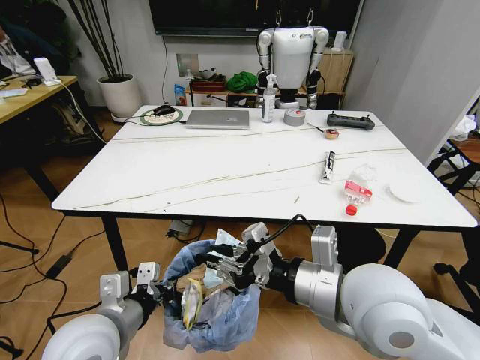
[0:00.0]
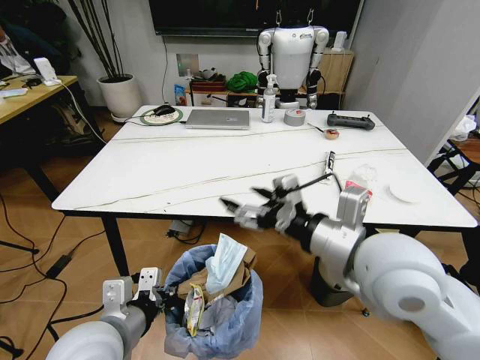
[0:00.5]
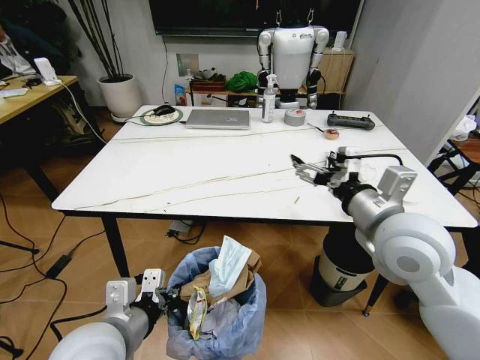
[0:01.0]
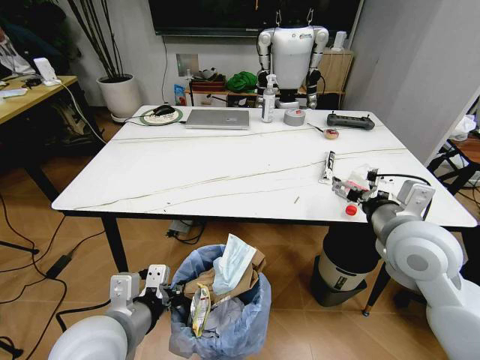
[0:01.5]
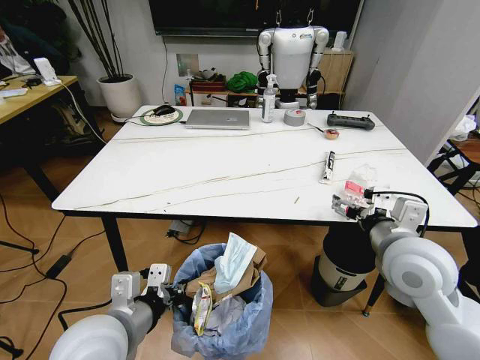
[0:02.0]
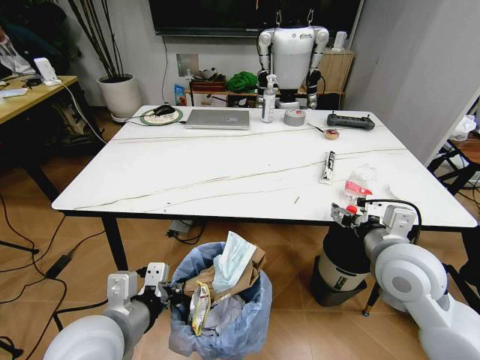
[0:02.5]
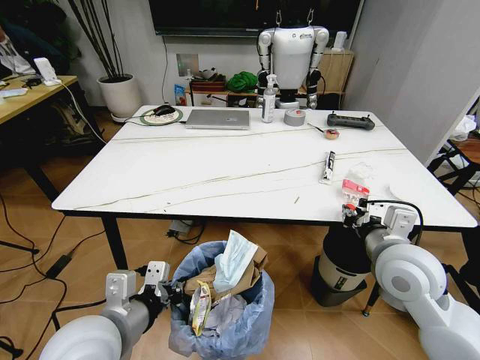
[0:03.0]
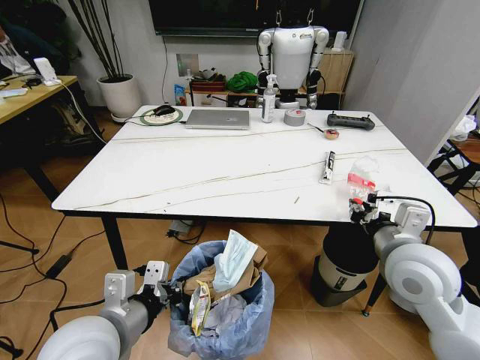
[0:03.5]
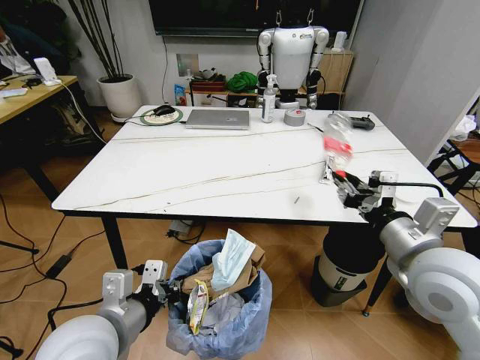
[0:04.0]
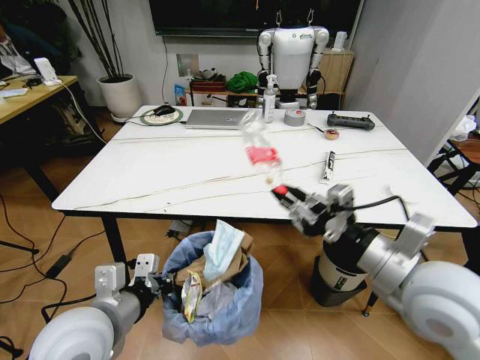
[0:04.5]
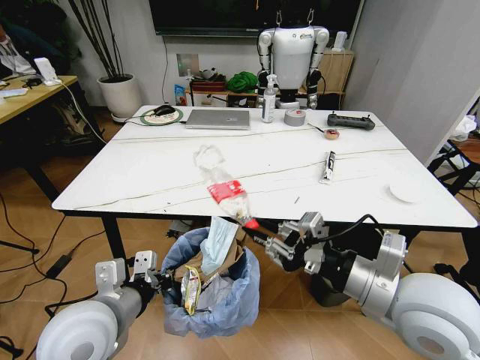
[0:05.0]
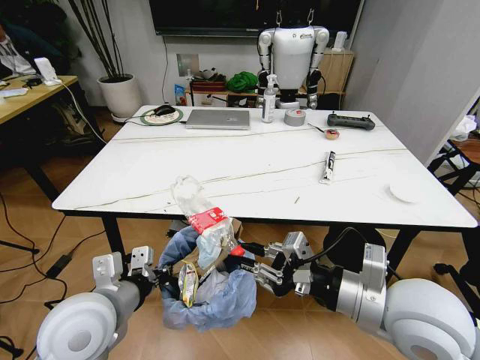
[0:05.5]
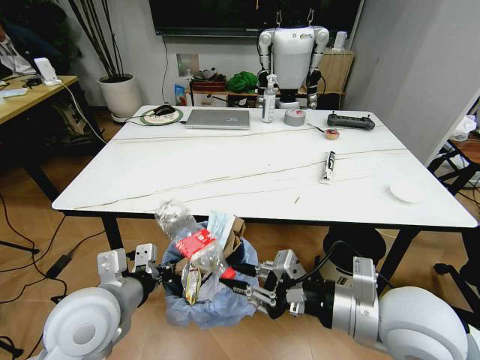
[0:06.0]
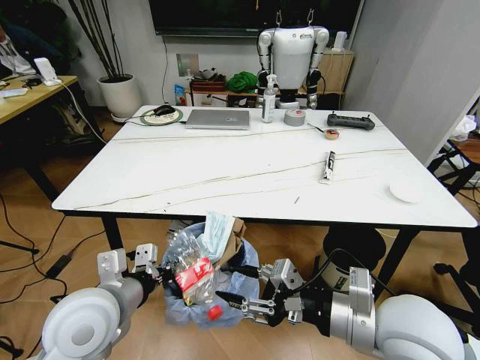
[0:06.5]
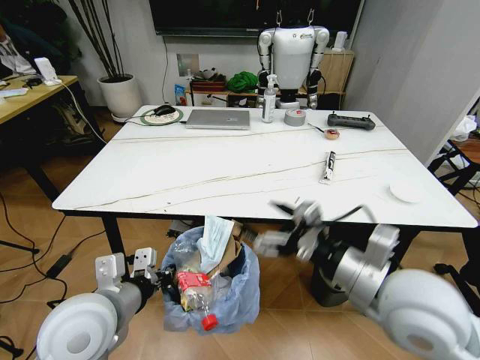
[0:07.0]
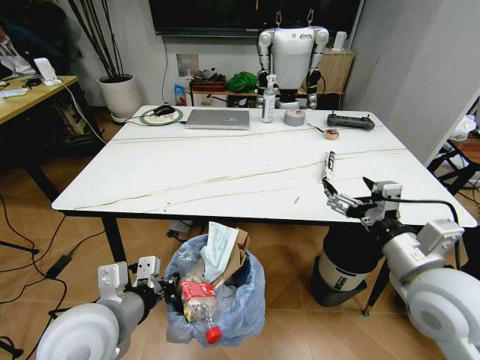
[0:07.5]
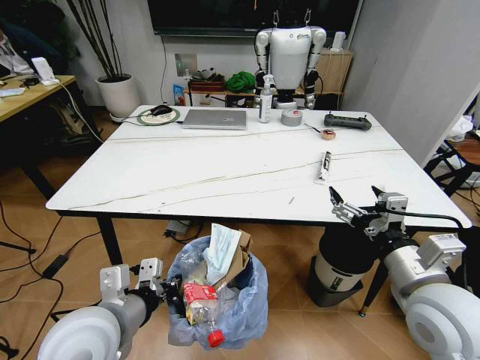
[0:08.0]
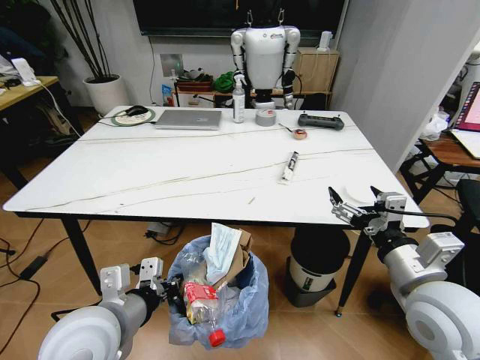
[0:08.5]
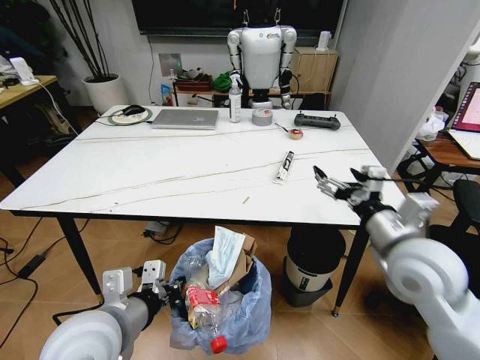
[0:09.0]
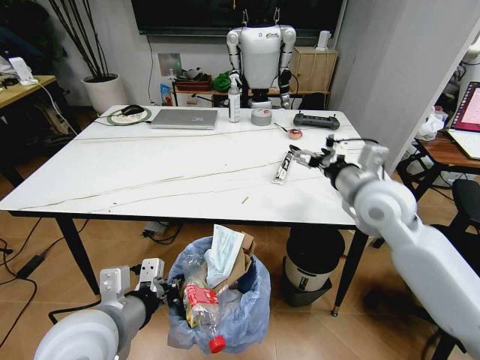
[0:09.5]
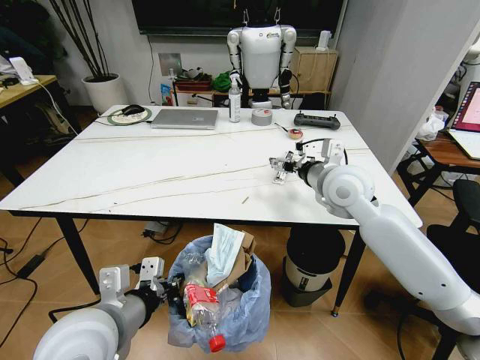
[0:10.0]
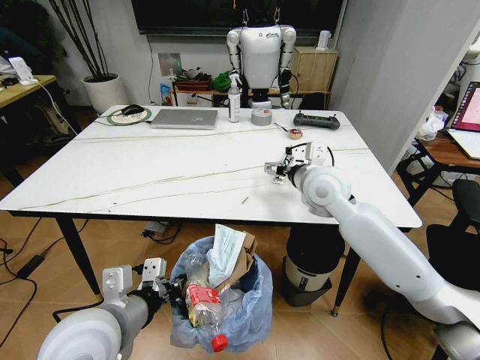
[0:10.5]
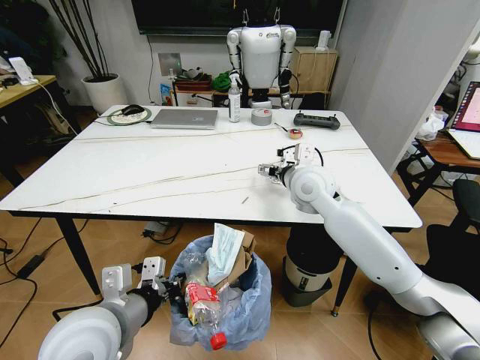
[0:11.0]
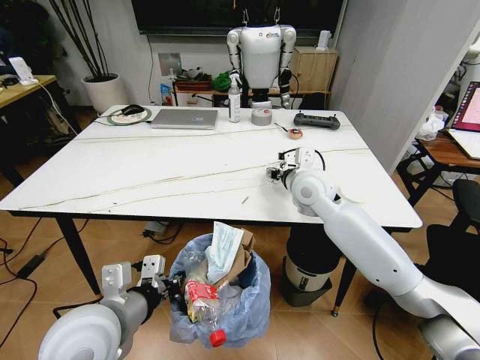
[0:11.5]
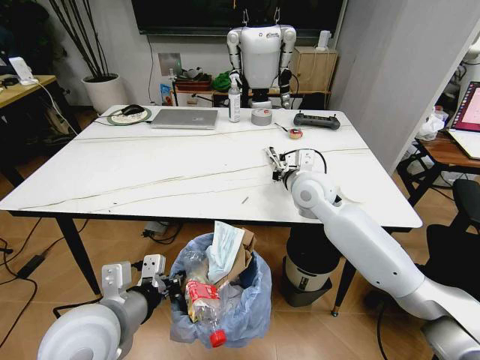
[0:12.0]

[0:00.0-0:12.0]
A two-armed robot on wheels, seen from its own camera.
Task of the whole recording: Pick up the trash bin and place the trash from the table into it.
0.0 to 2.0 s: The right gripper travels to the right and forward by roughly 15 cm, and opens its fingers.
2.0 to 4.0 s: The right gripper closes.
4.0 to 6.0 s: The right gripper travels to the left by roughly 5 cm.
6.0 to 8.0 s: The right gripper heads to the right, covering about 5 cm, and opens.
8.0 to 10.0 s: The right gripper goes roughly 25 cm forward.
10.0 to 12.0 s: The right gripper moves about 5 cm, and closes up.

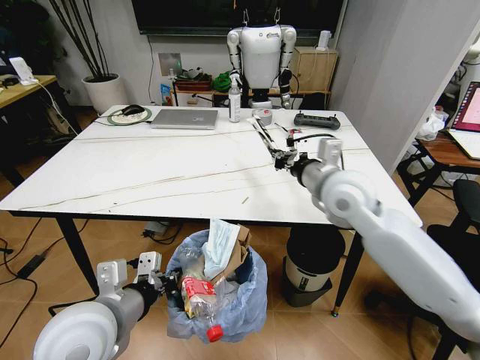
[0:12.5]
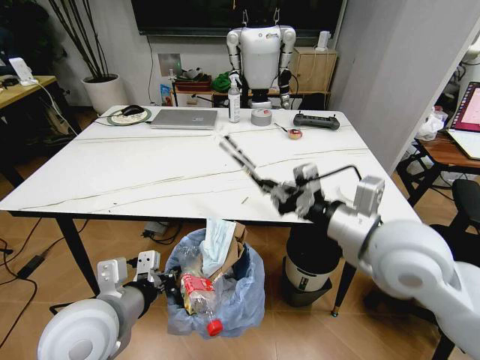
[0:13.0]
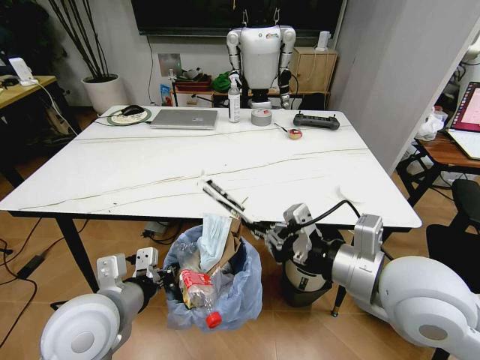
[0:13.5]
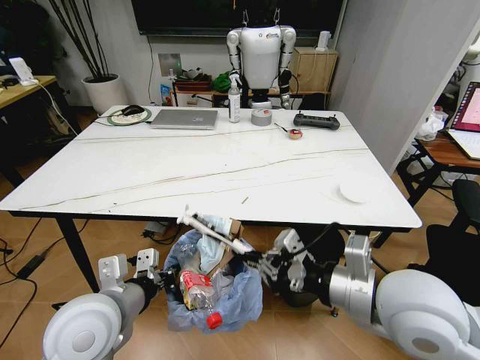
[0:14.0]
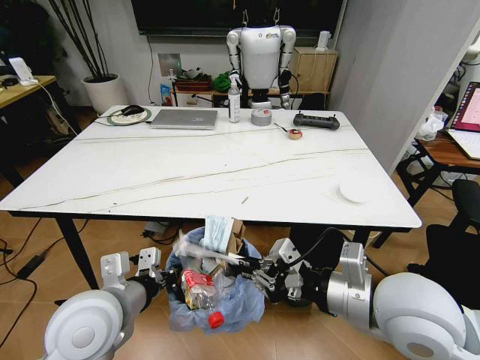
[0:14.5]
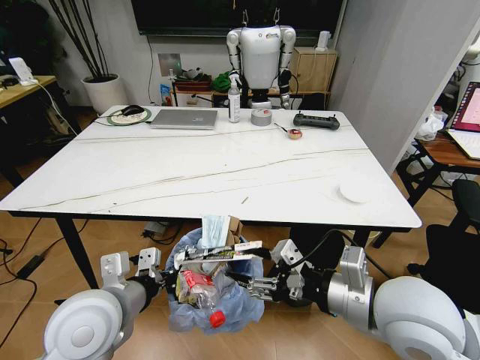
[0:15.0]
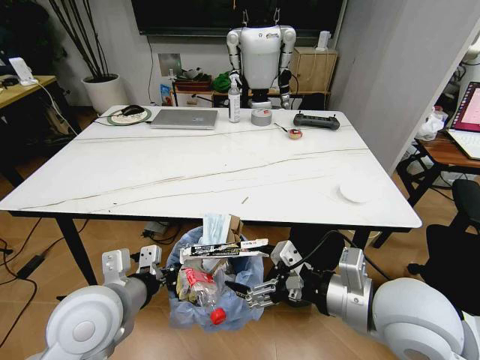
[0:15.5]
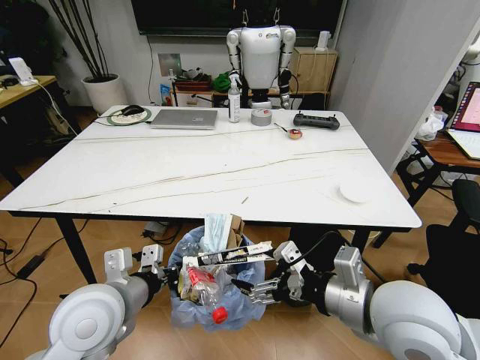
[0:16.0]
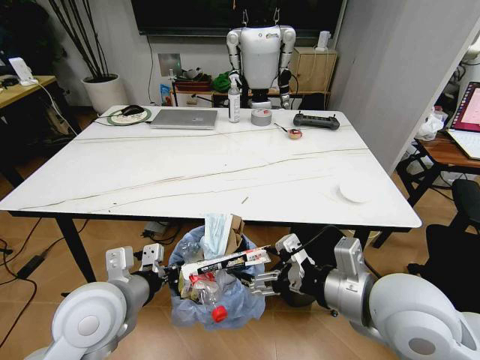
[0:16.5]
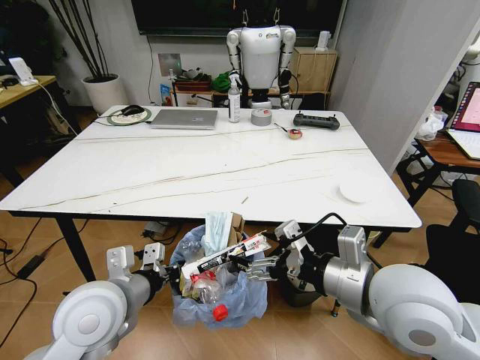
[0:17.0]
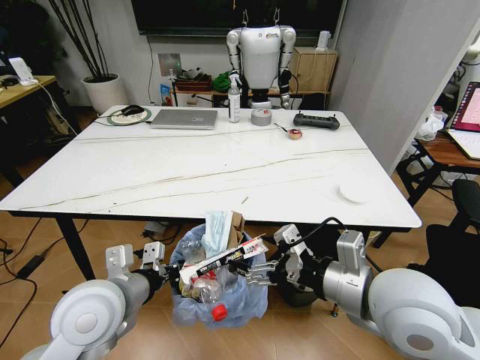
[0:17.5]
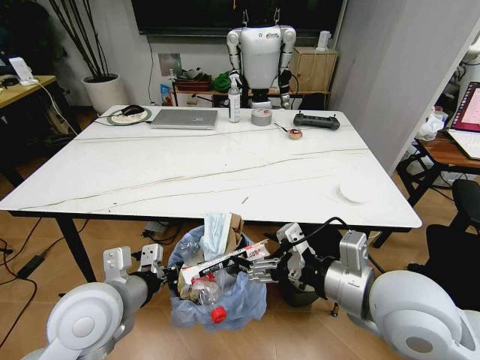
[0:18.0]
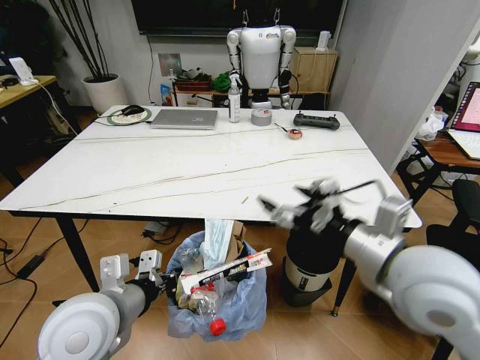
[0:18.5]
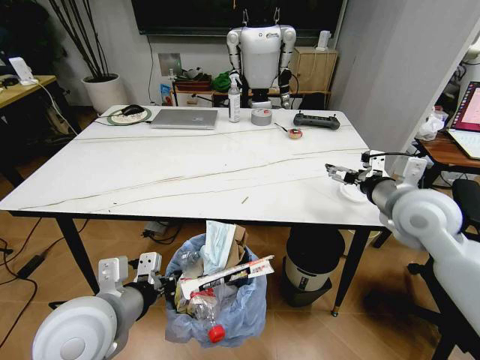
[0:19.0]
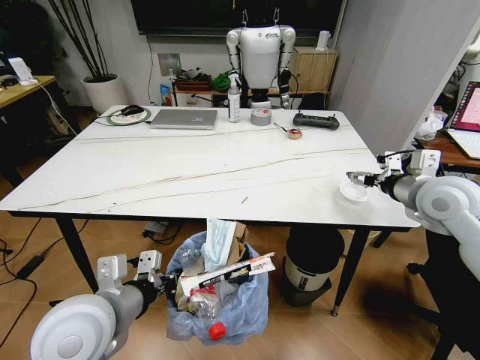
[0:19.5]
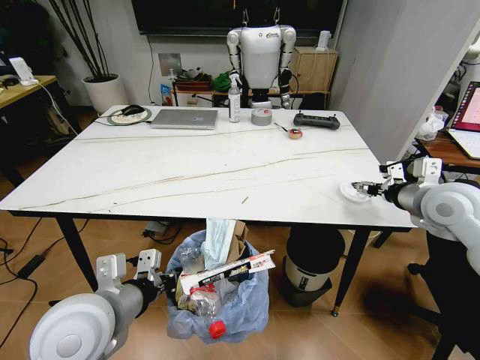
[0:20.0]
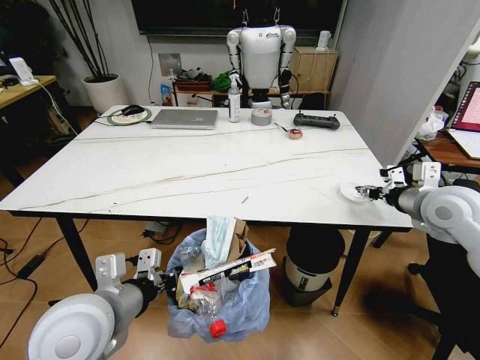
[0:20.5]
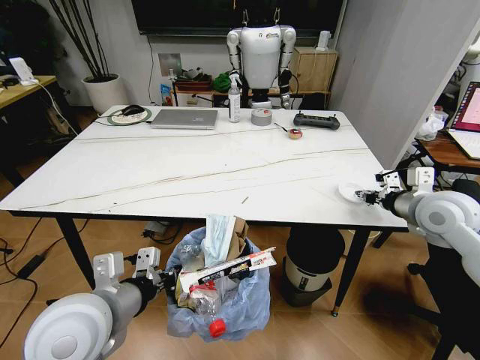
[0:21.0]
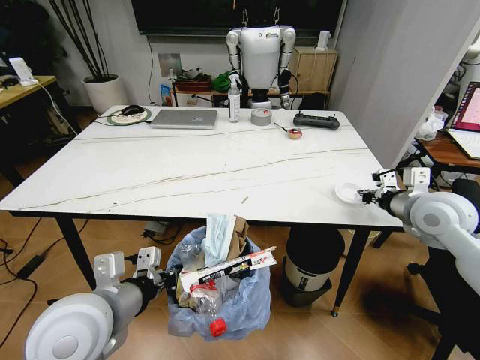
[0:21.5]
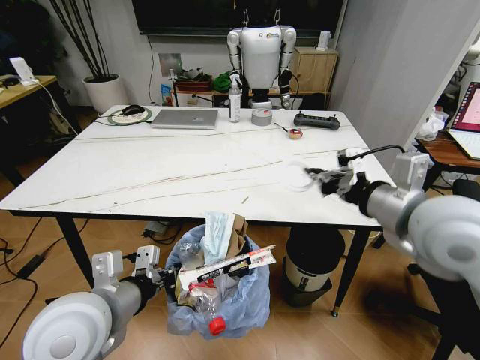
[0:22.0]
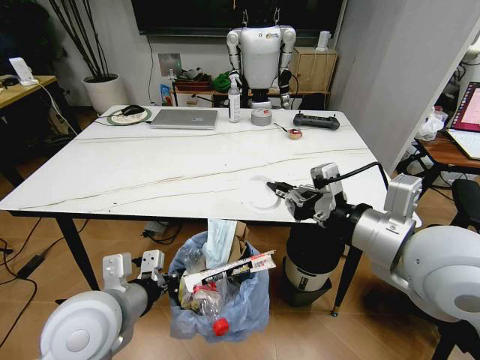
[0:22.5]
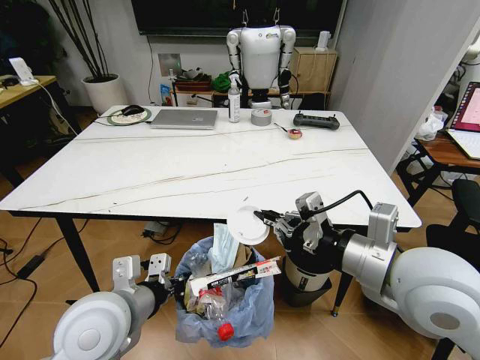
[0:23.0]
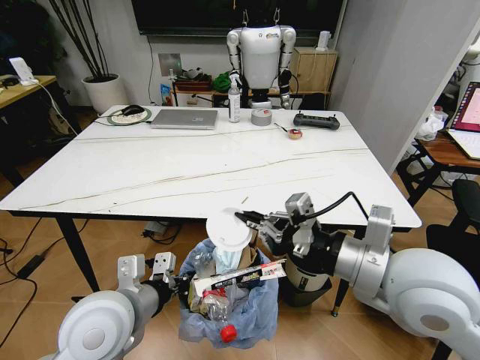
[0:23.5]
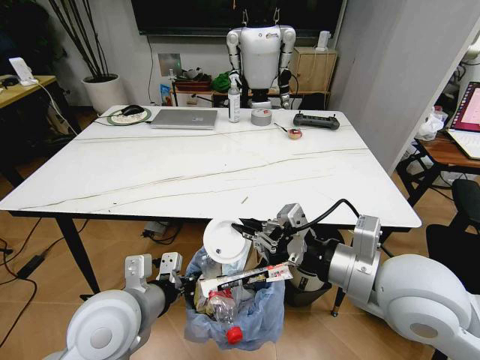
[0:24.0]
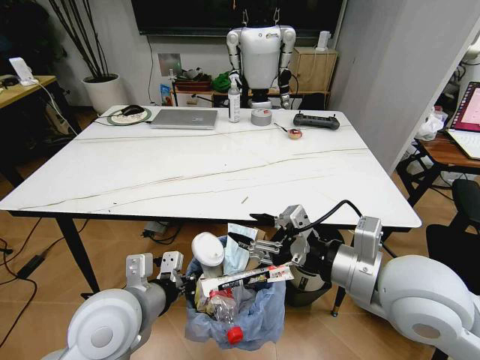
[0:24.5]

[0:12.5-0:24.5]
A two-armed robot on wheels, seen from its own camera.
Task of the whole recording: Pick up the trash bin and place the trash from the table into it.
12.5 to 14.5 s: The right gripper heads backward, covering approximately 20 cm.
14.5 to 16.5 s: The right gripper opens its fingers.
18.5 to 20.5 s: The right gripper moves to the right and forward, some 25 cm, and closes its fingers.
20.5 to 22.5 s: The right gripper goes some 25 cm to the left, backward and upward, and closes its fingers.
22.5 to 24.5 s: The right gripper shifts some 5 cm downward, and opens up.

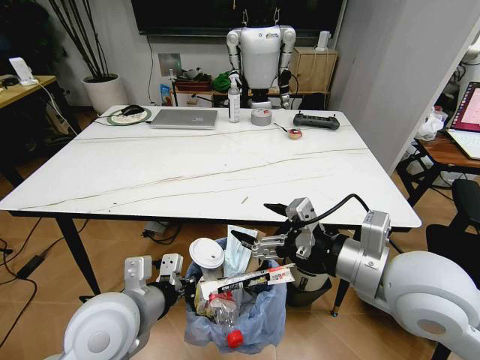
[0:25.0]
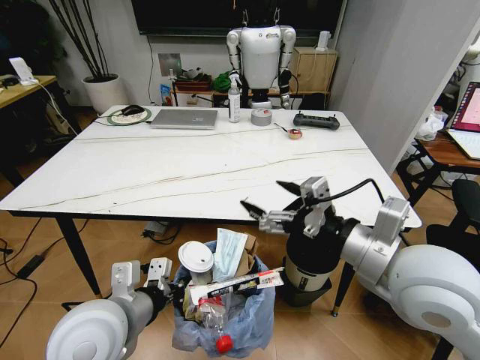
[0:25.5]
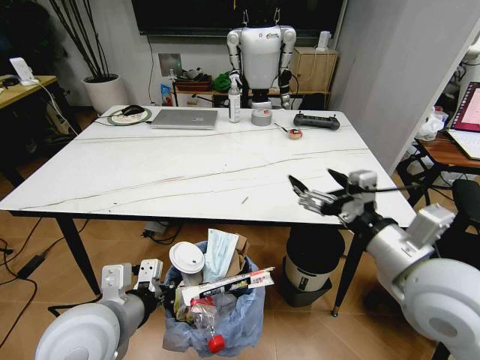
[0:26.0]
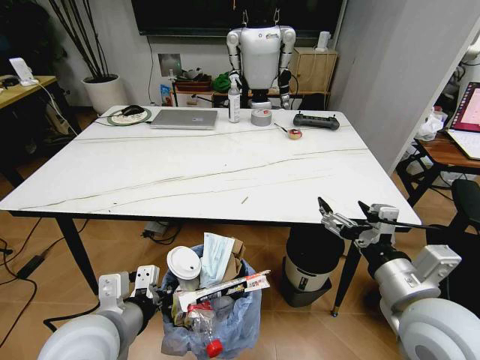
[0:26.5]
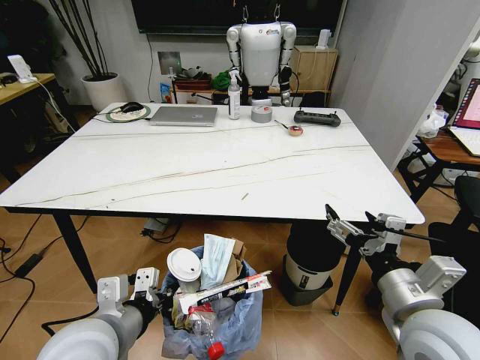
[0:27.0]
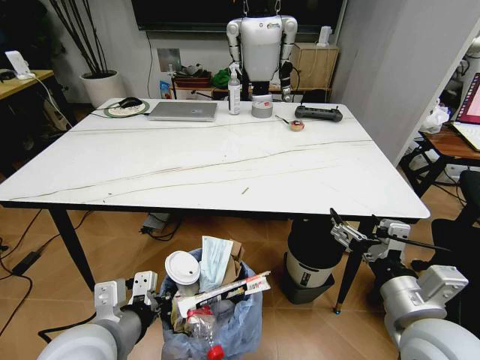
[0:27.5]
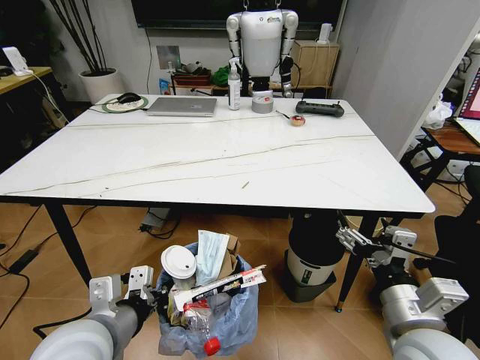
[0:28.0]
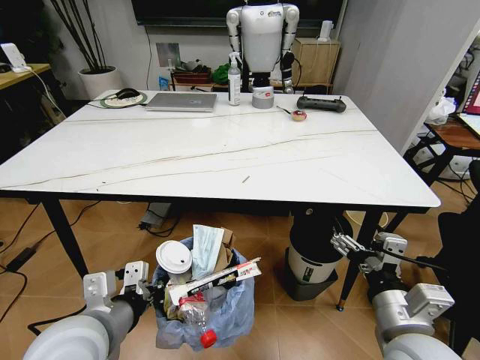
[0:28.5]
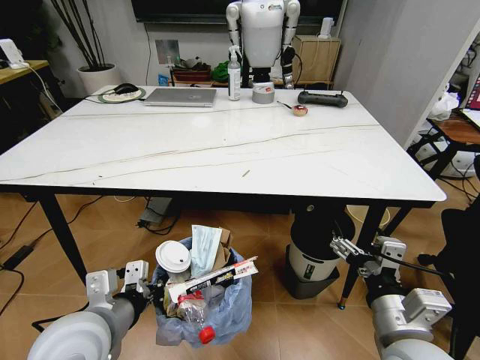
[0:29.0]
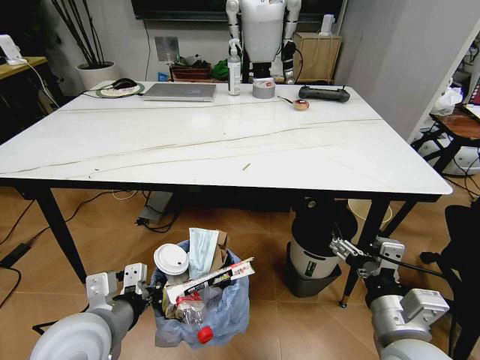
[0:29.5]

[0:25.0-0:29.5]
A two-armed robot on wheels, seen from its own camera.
Task of the whole recording: Pick up the trash bin and place the trash from the table into it.
25.0 to 27.0 s: The right gripper goes roughly 5 cm downward.
27.0 to 29.5 s: The right gripper ends up approximately 5 cm from where it was.
